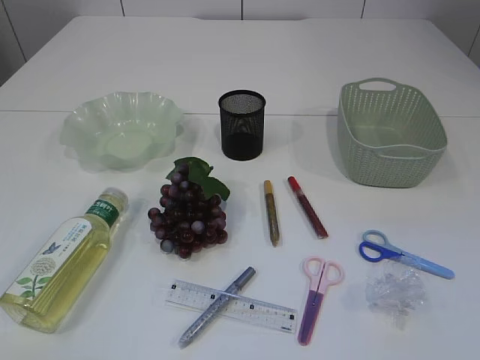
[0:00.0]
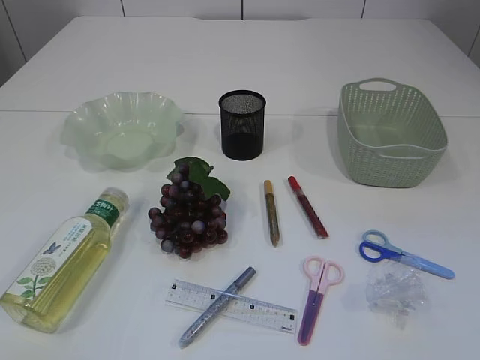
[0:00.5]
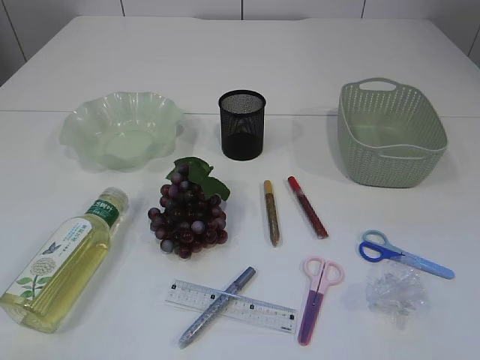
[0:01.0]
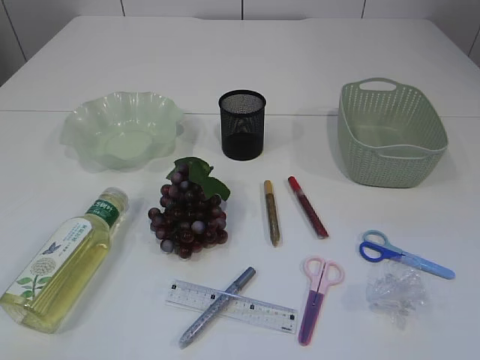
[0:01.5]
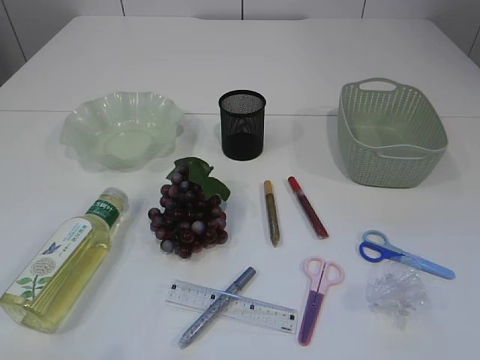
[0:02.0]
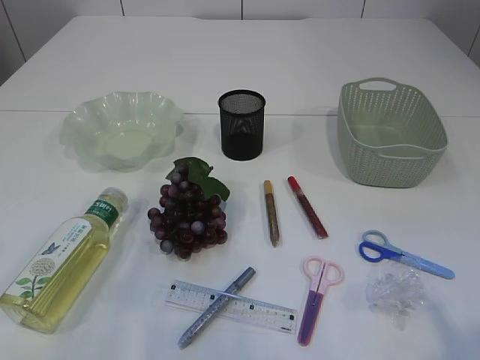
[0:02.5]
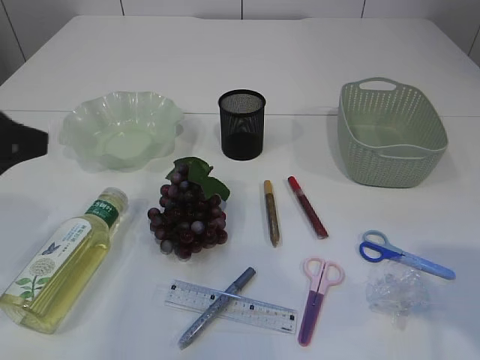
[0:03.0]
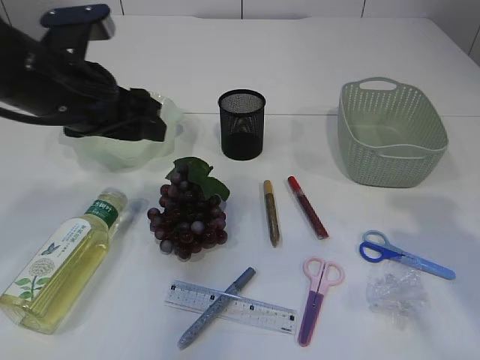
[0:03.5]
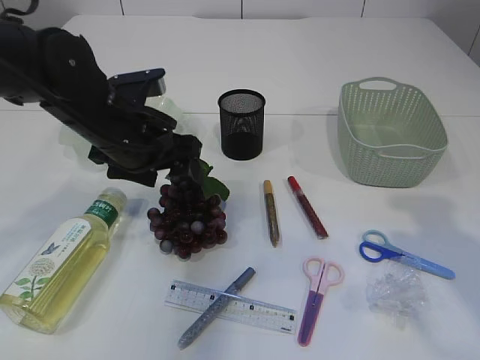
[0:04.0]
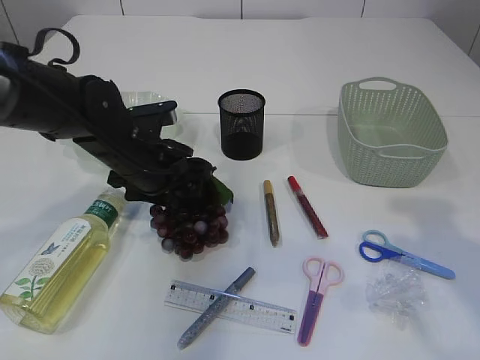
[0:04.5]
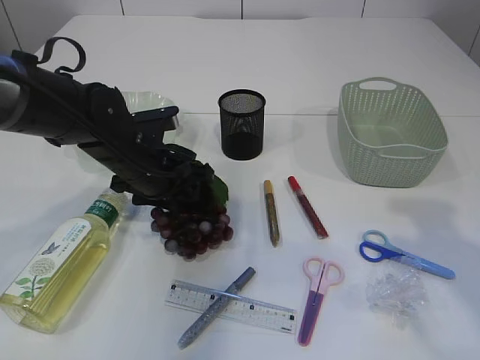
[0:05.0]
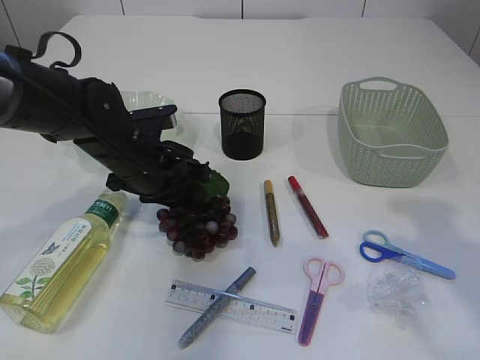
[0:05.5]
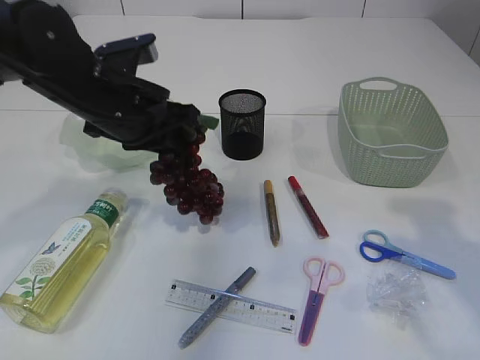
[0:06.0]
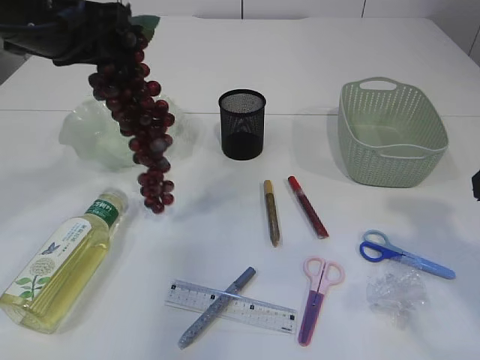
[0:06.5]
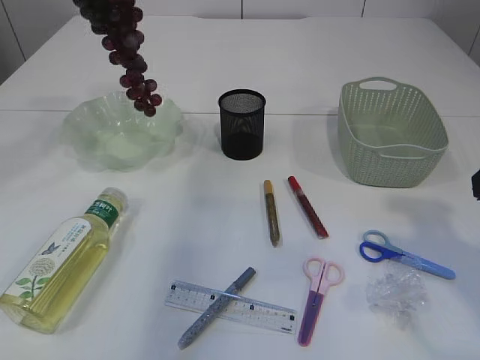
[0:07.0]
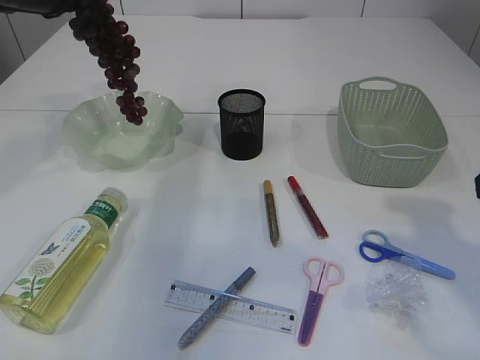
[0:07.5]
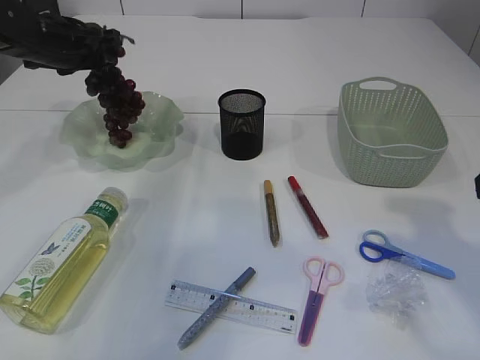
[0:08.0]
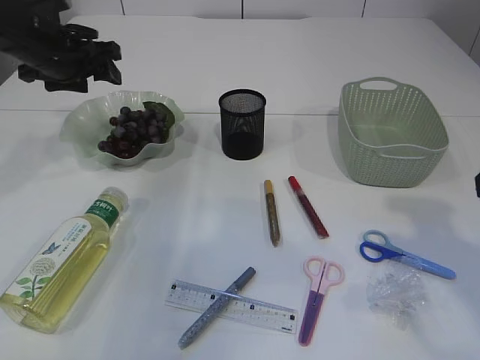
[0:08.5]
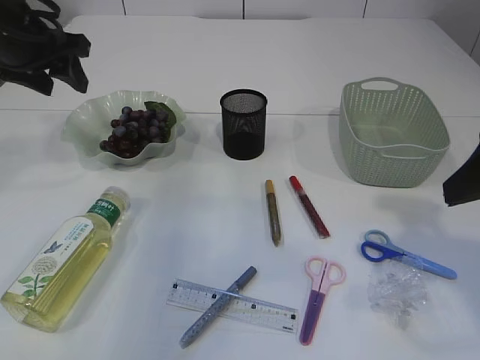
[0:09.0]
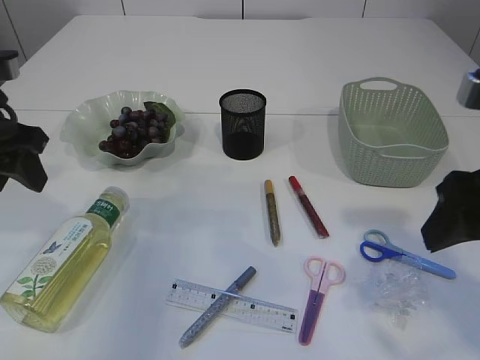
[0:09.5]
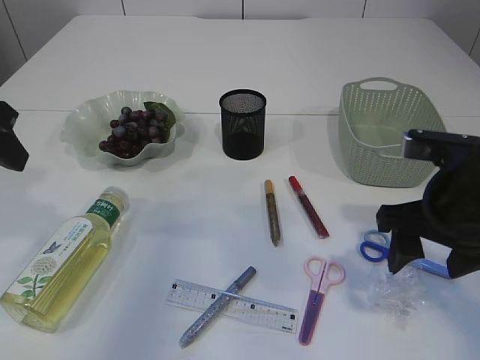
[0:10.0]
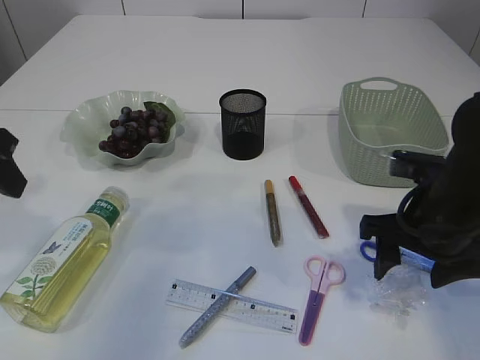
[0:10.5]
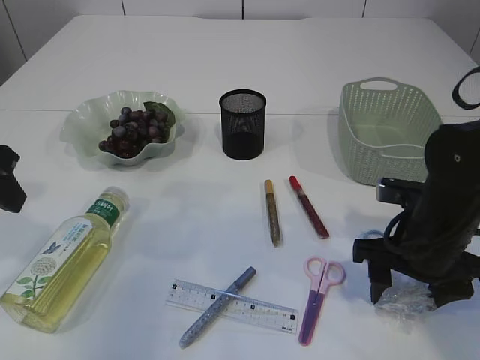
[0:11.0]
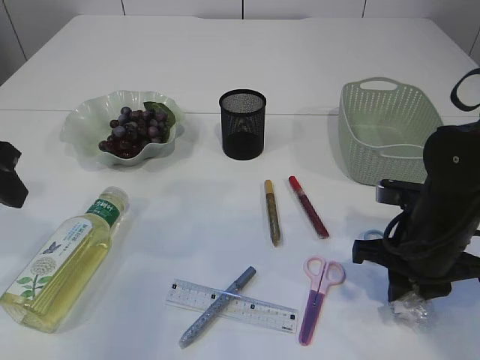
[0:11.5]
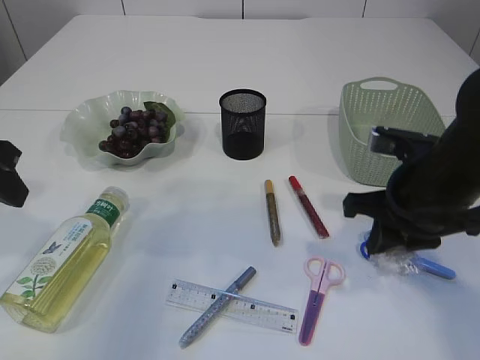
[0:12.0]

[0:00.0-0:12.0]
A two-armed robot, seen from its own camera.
Step, 0:00.0 to 0:06.0: Pick up the grapes.
Step, 0:06.5 to 0:09.0: Place the grapes in the plate.
Step, 0:09.5 to 0:11.5: Pick up the plastic.
0:02.0 to 0:04.0: The left gripper moves forward and to the right, about 40 cm; the right gripper is displaced forward by approximately 20 cm.
0:04.0 to 0:06.0: The left gripper closes up.
0:06.0 to 0:08.0: The left gripper goes approximately 20 cm forward and to the left, moves about 15 cm upward and comes back, and opens up.
0:08.0 to 0:10.0: The left gripper shifts about 20 cm backward; the right gripper moves downward, to the left and forward, about 15 cm.
0:10.0 to 0:12.0: The right gripper closes its fingers.

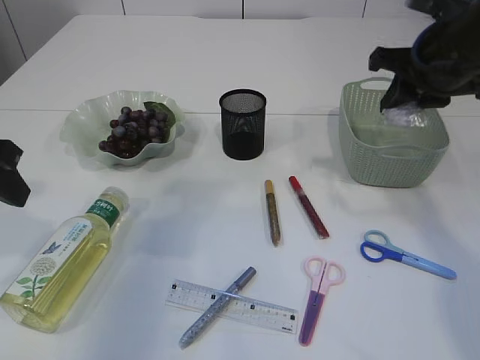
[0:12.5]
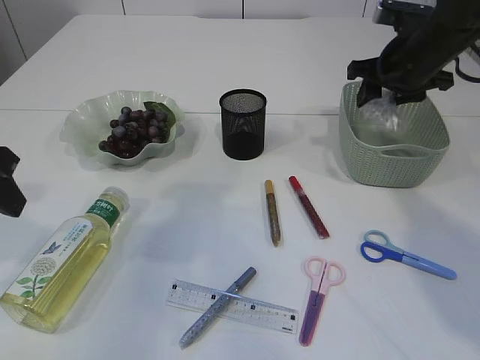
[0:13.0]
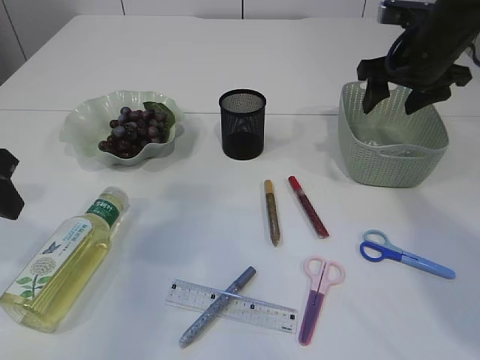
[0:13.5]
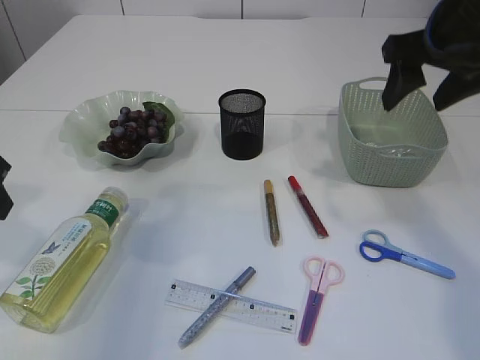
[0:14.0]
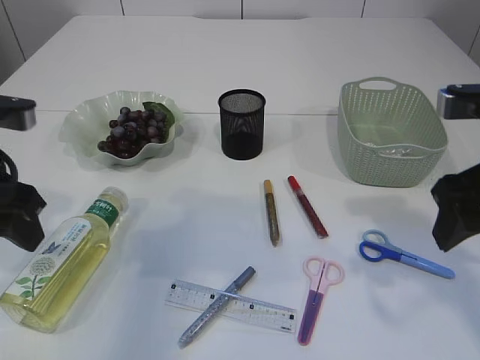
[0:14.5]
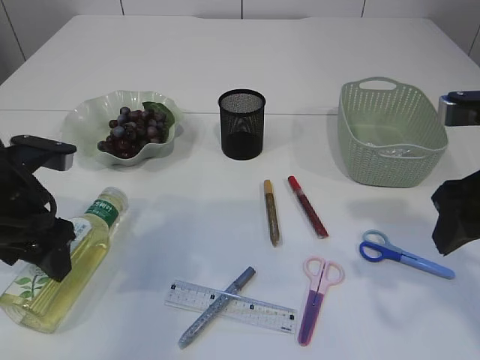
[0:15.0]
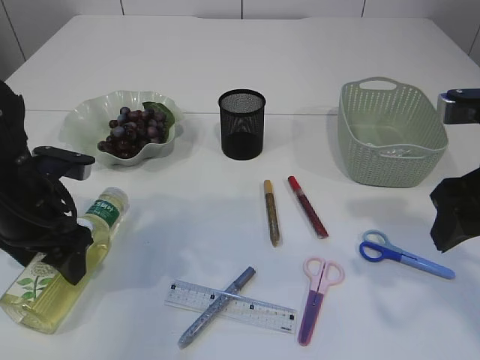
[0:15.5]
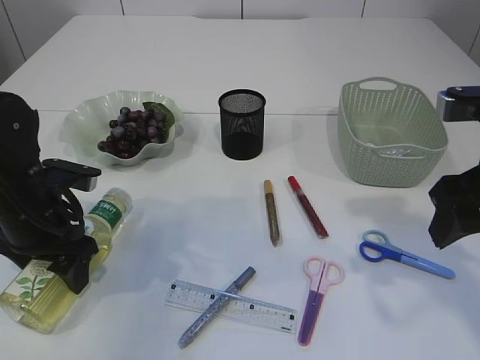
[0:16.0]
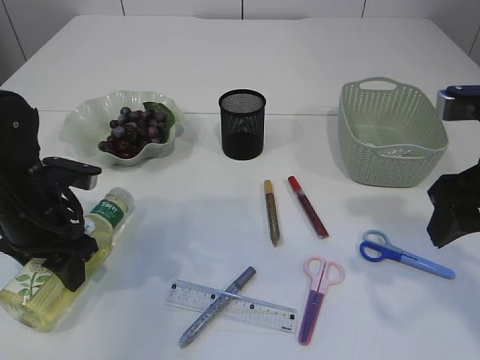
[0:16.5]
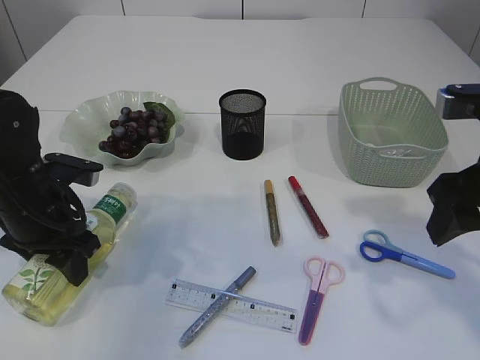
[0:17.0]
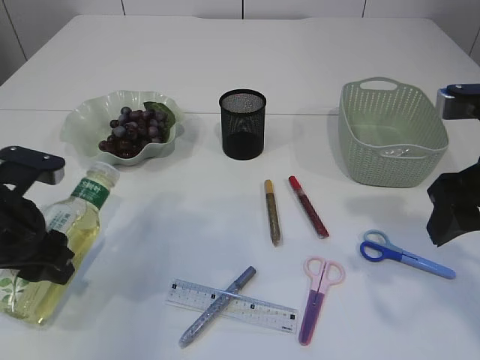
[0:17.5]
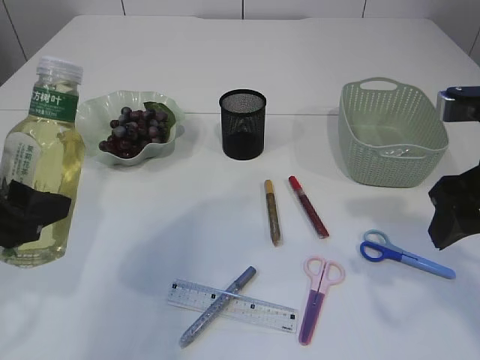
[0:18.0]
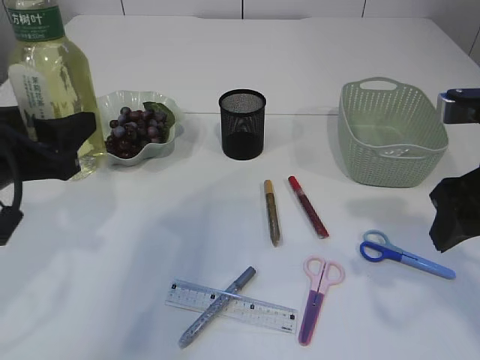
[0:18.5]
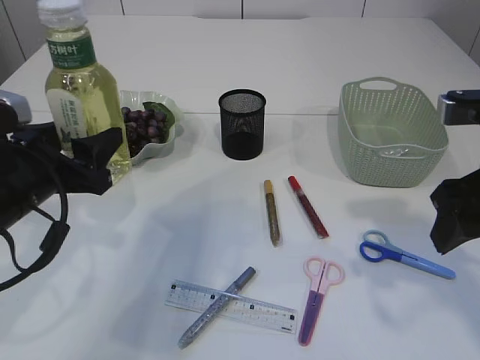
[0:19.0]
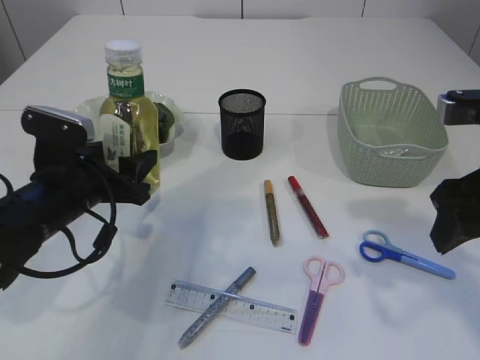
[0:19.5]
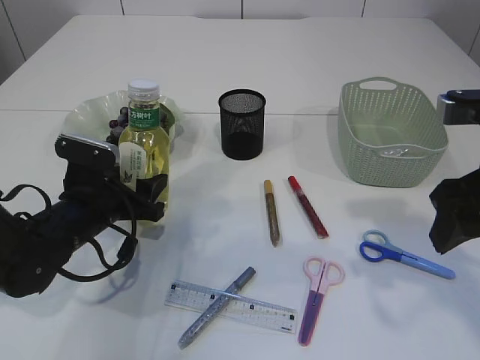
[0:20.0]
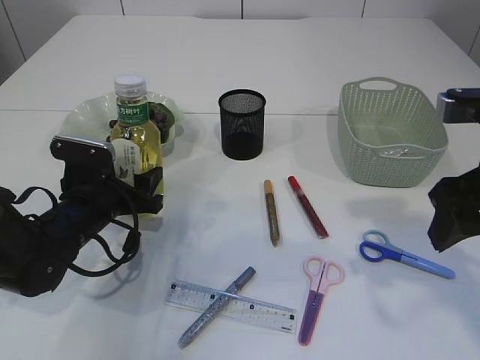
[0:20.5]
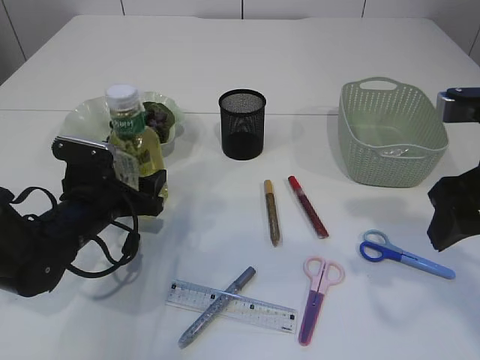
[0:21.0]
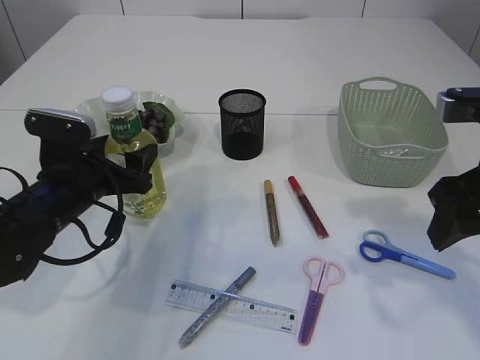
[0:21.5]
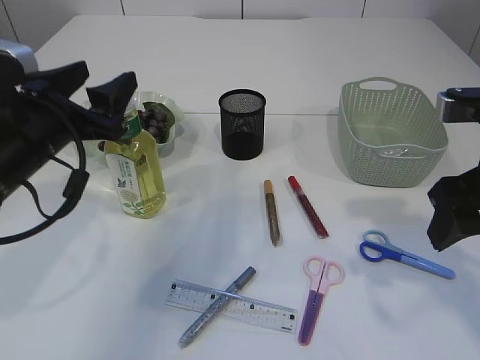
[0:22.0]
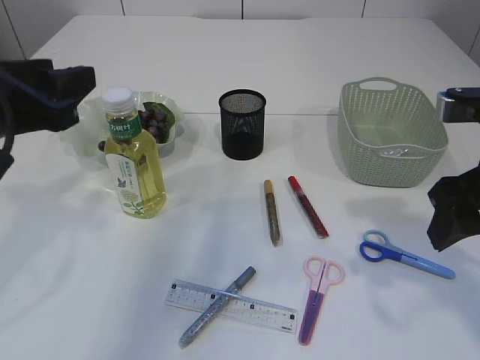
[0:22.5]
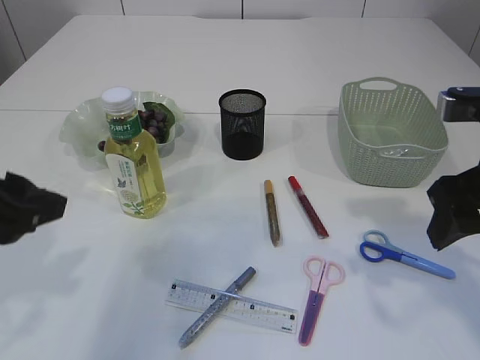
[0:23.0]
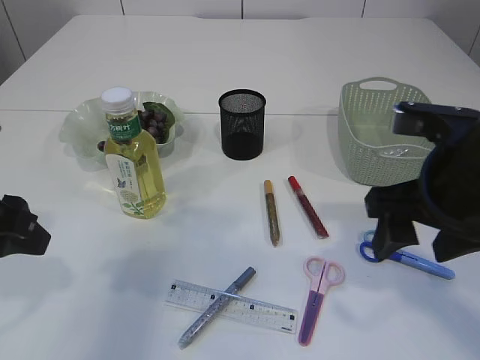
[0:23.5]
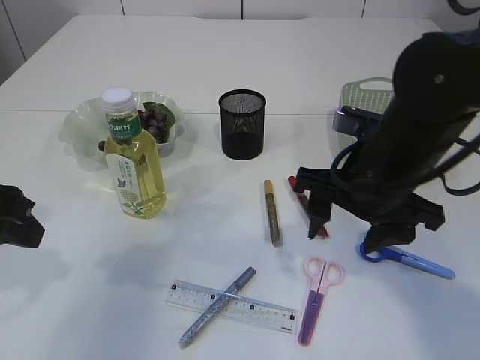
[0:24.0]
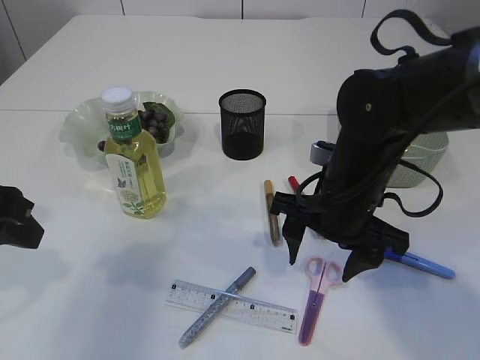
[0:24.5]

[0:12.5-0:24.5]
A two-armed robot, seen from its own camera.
Step, 0:12.5 to 0:13.5: Place the plastic in the basket.
Step, 0:14.0 to 0:17.5: Pick up the bottle with the left arm.
Step, 0:18.0 to 0:22.0: Place the bottle.
0:12.5 to 0:14.5: The right gripper travels backward by about 15 cm, and opens its fingers.
0:14.5 to 0:16.5: The left gripper goes roughly 10 cm downward.
0:16.5 to 0:18.5: The left gripper is displaced upward and backward by roughly 10 cm.
0:18.5 to 0:20.5: The left gripper travels downward and forward by some 20 cm.
0:20.5 to 0:22.5: The left gripper is displaced upward and backward by some 20 cm.
0:22.5 to 0:24.5: The left gripper shifts by some 5 cm. Meanwhile the right gripper is displaced to the left, downward and forward by roughly 15 cm.

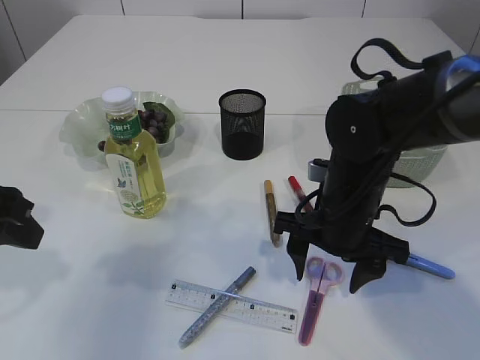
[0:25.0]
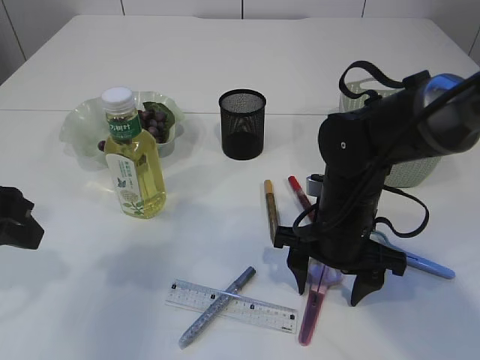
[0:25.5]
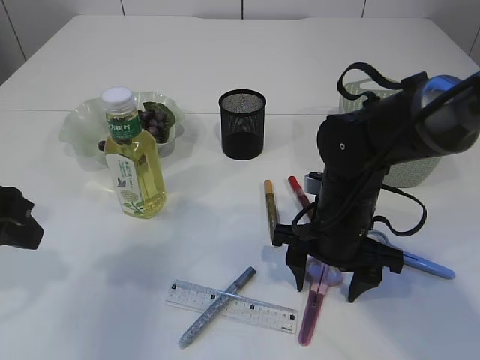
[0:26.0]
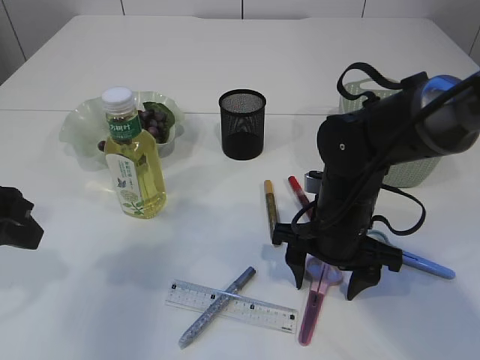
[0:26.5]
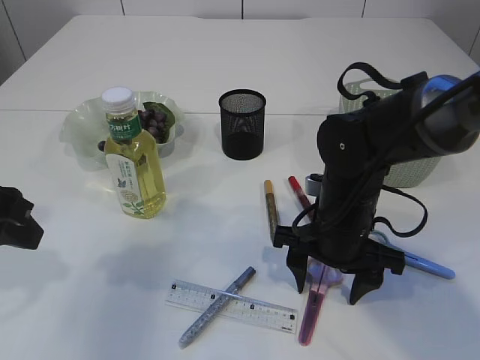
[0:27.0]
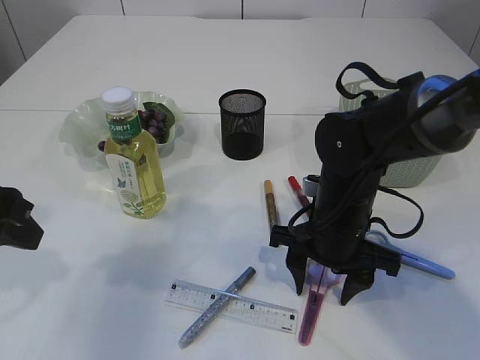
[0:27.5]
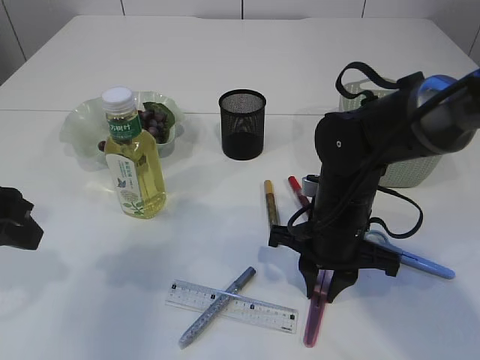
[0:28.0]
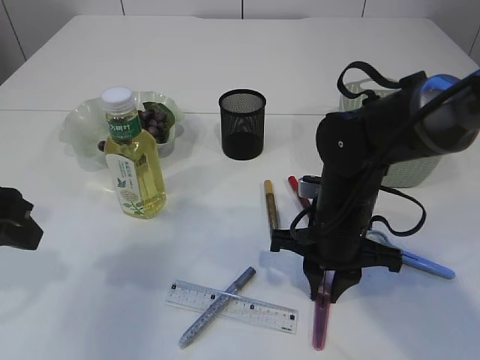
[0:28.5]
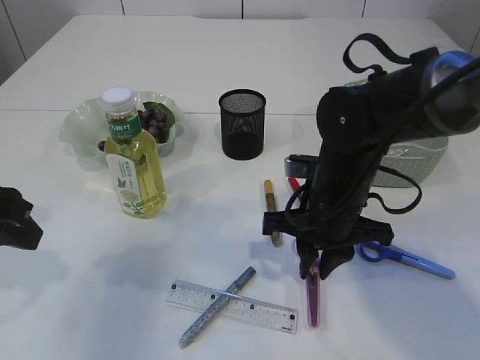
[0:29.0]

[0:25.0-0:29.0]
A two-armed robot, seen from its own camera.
0:25.0 to 0:27.0: The grippers stay close to where they were, moving slightly.
0:27.0 to 0:29.0: The right gripper closes its fingers.
